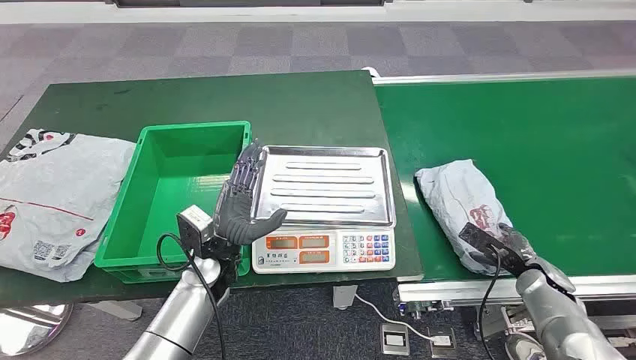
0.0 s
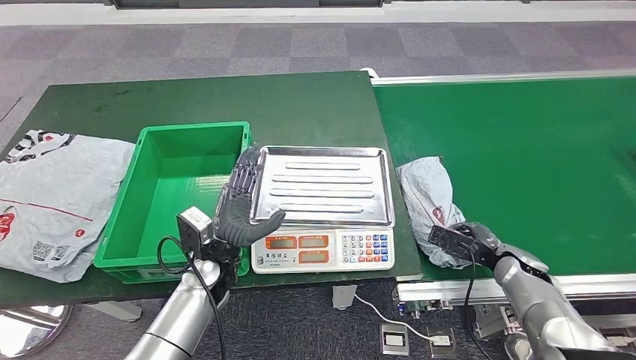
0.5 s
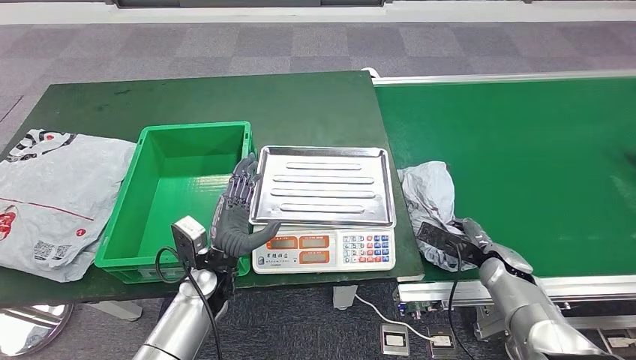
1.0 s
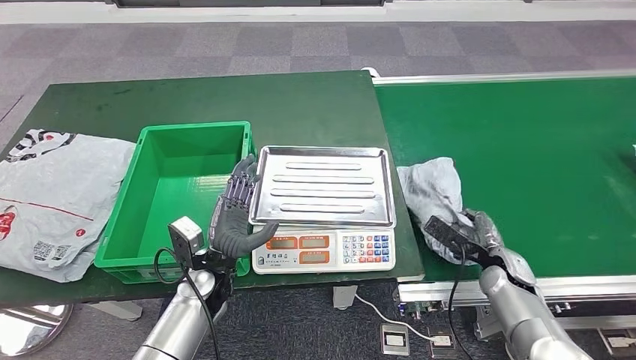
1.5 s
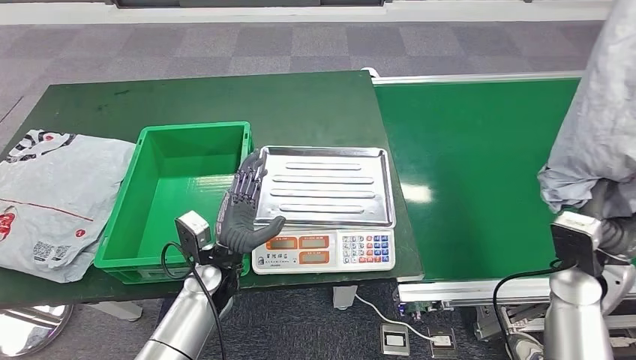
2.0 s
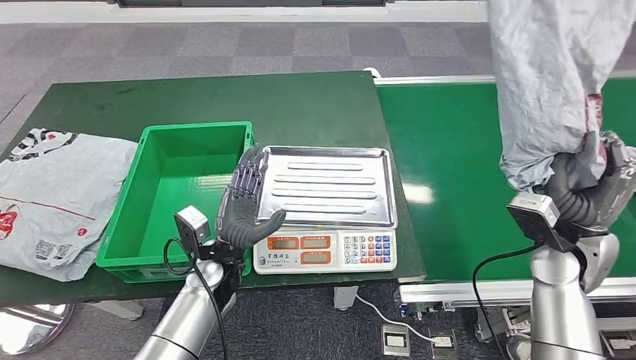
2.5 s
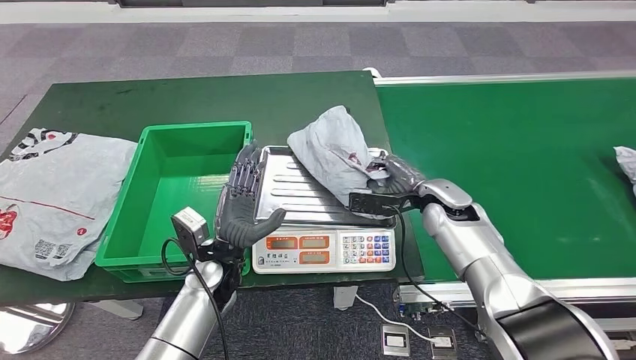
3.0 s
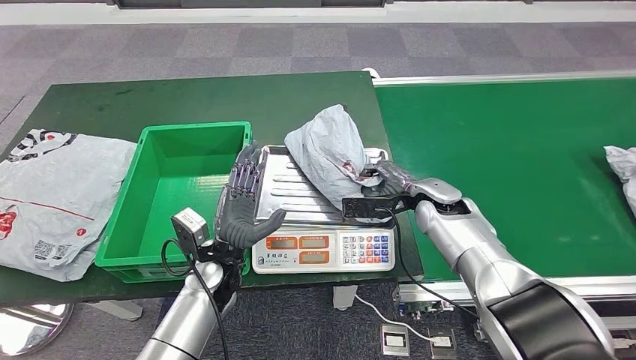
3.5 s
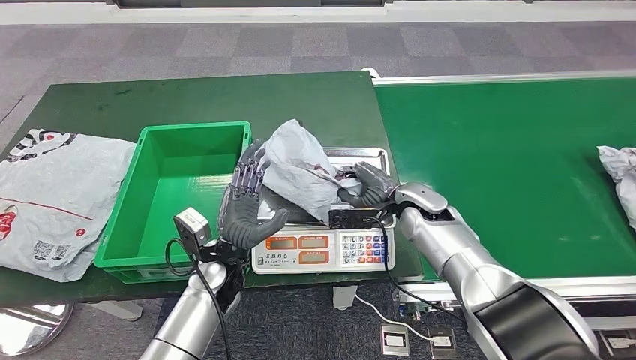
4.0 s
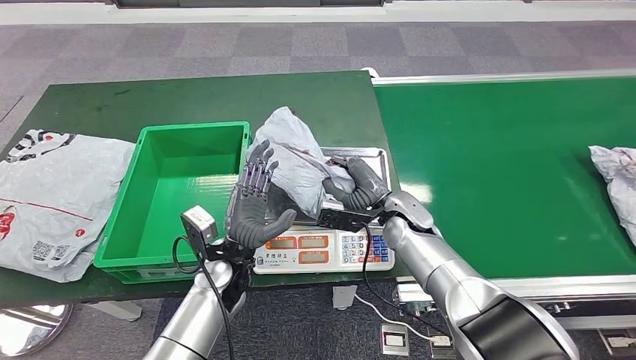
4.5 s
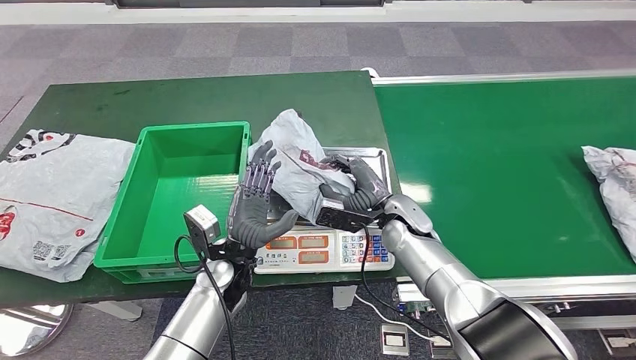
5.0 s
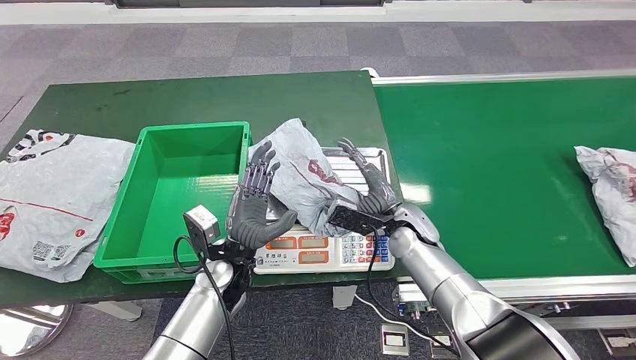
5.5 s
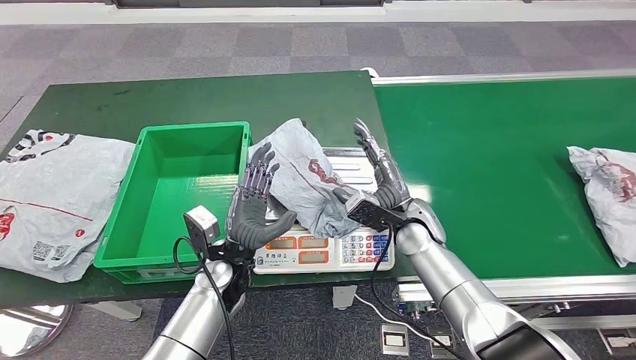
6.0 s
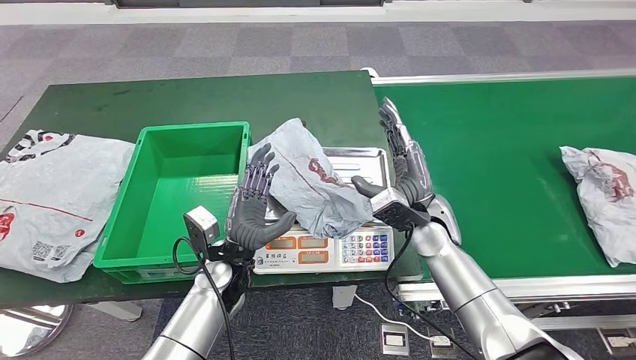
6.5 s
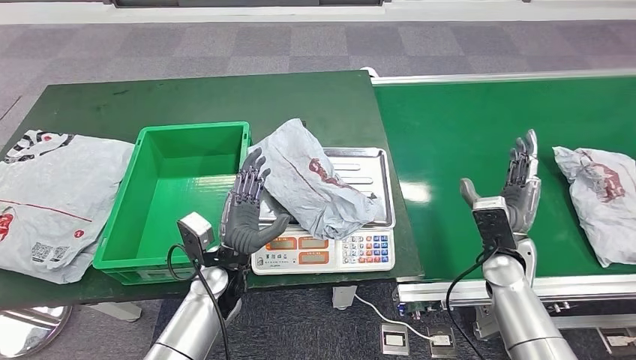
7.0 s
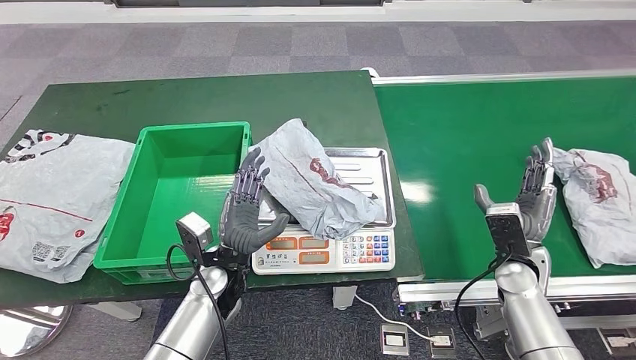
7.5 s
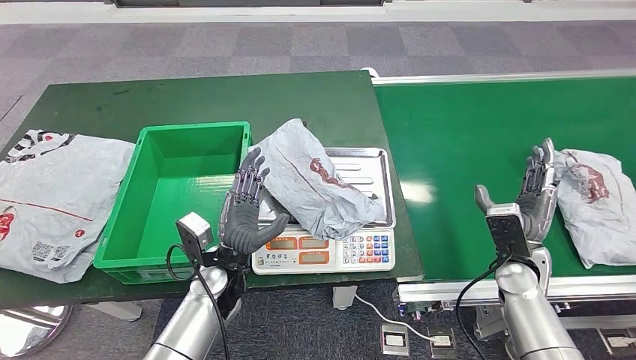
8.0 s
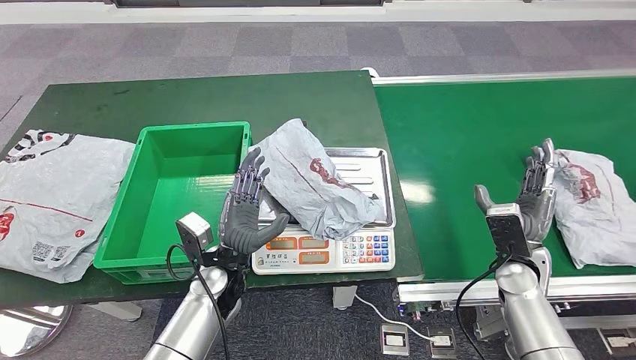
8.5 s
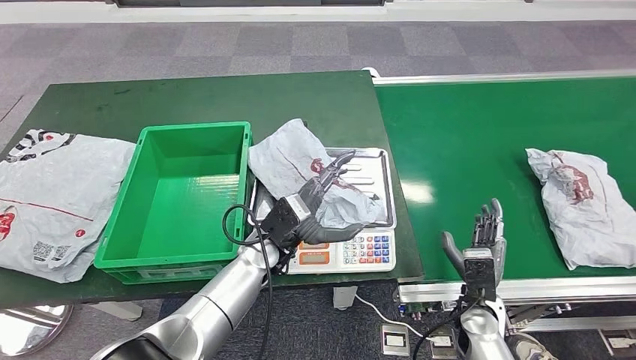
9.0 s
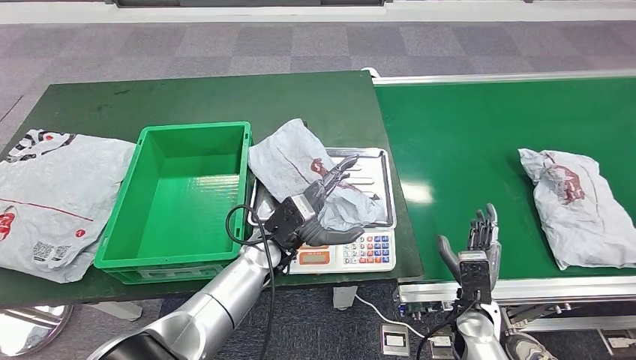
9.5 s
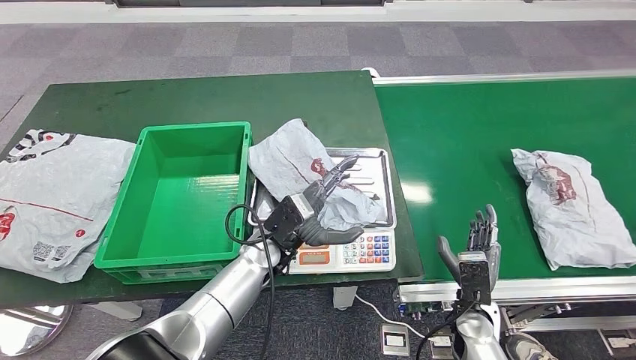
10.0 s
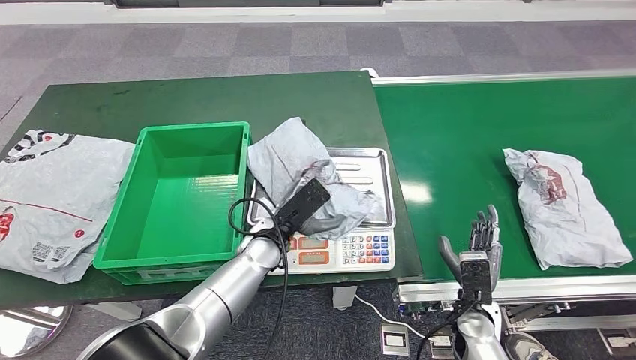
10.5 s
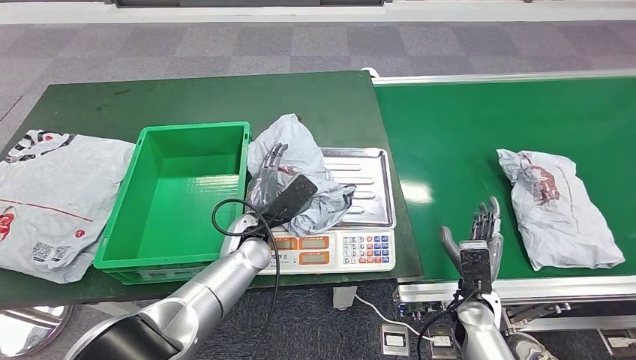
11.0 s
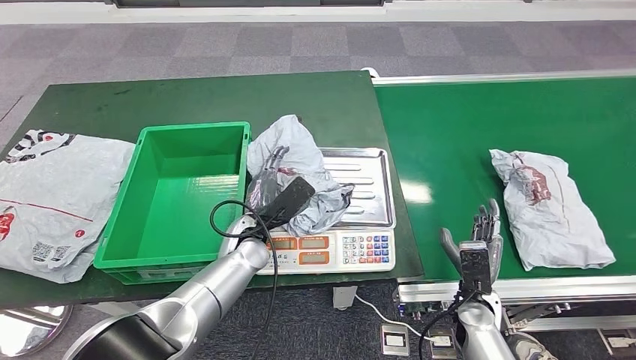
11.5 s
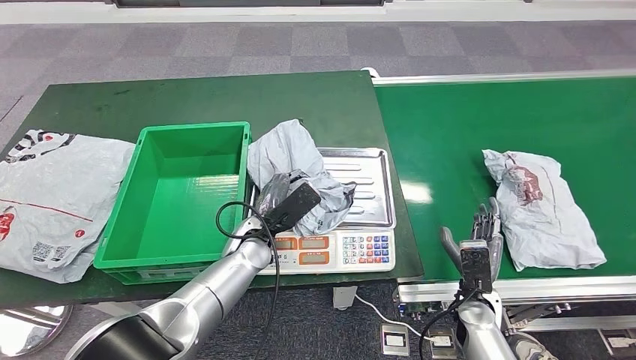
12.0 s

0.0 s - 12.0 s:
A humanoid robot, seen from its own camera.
Step, 0.0 s - 1.5 s: Take the parcel off the conveyor belt.
Step, 2.0 s - 5.0 s: Place the parcel onto the inbound machine.
6.0 s - 8.0 s: The right hand travels to the right and backward by roughly 20 cm.
8.0 s - 10.0 s: The right hand goes approximately 15 cm downward, to the left and backward, while the left hand moves to the right, roughly 5 cm.

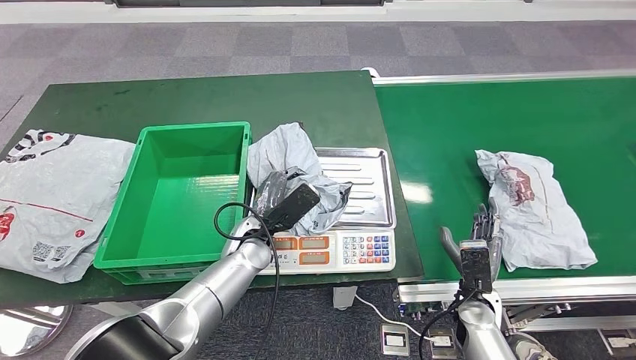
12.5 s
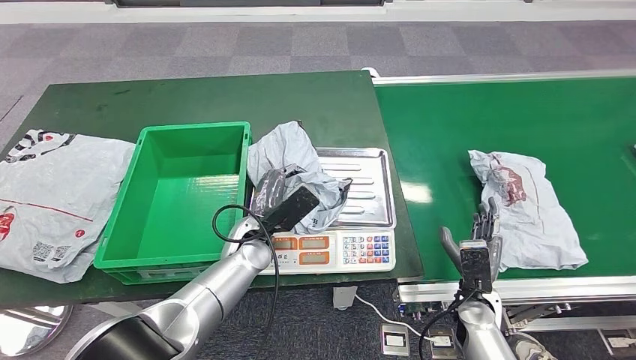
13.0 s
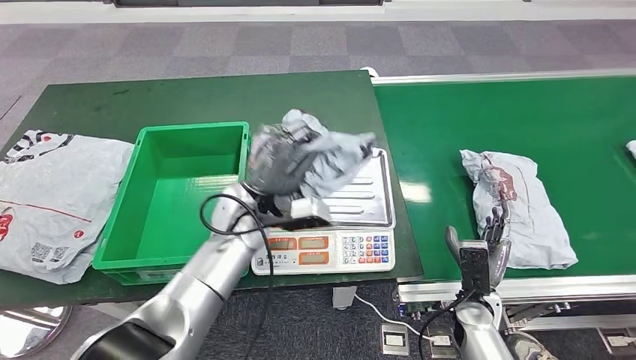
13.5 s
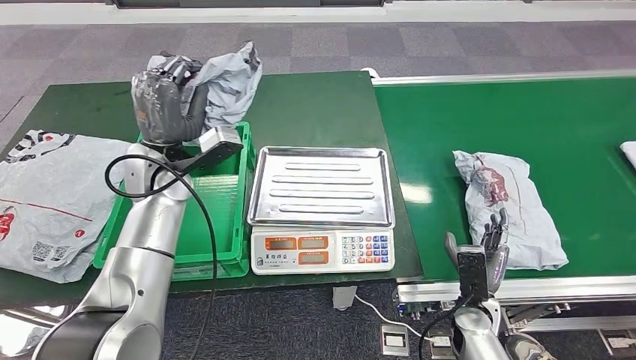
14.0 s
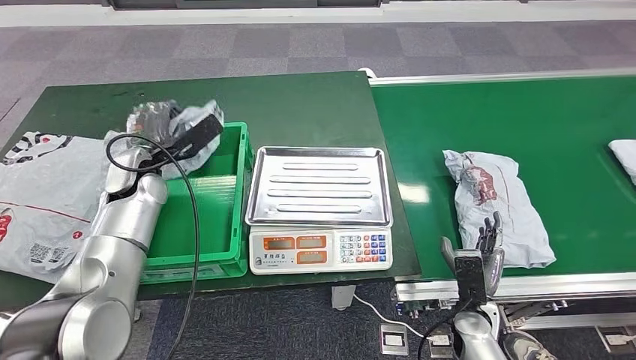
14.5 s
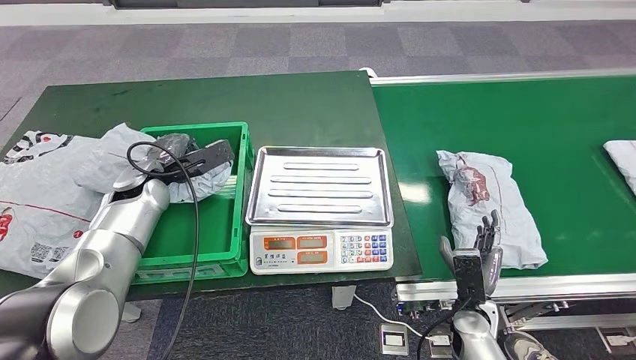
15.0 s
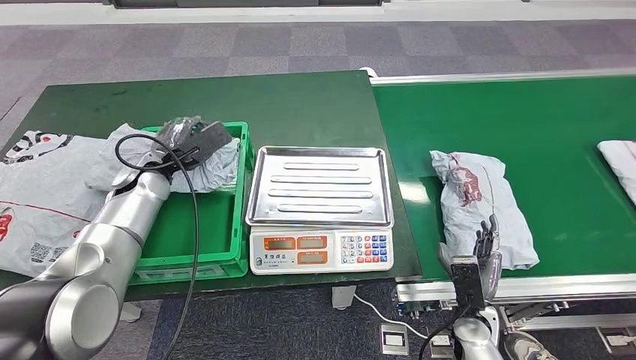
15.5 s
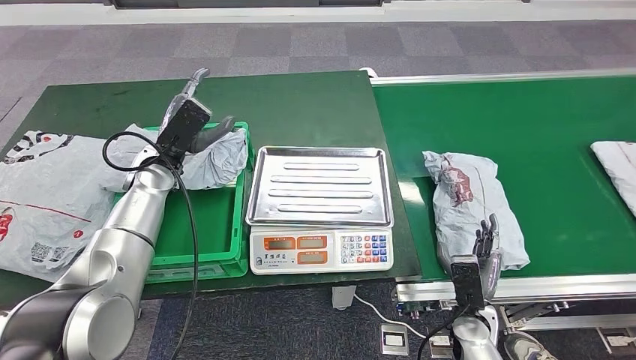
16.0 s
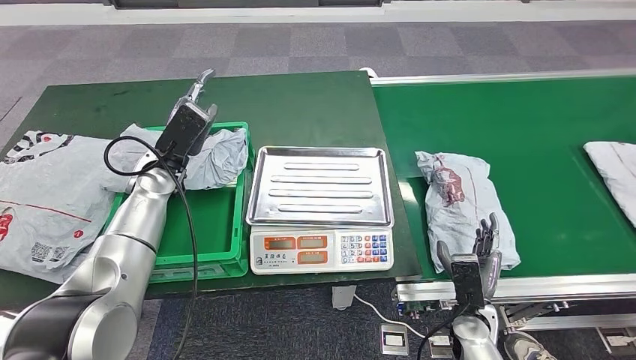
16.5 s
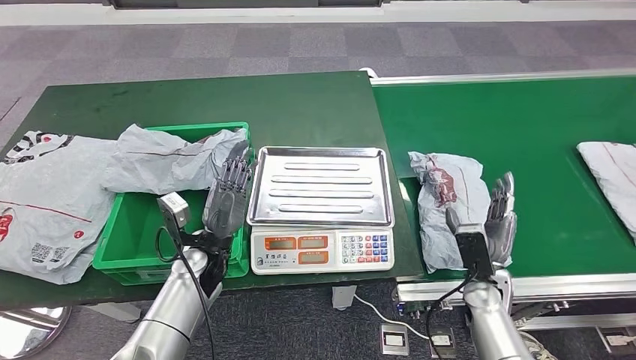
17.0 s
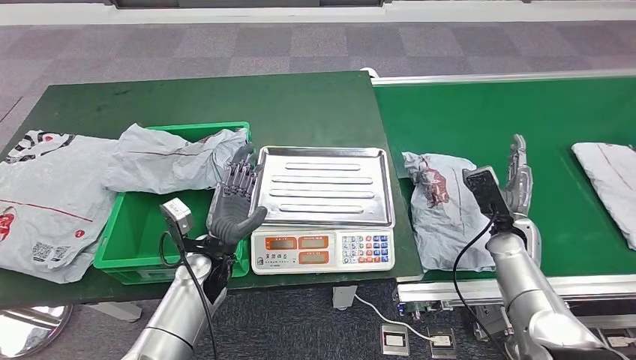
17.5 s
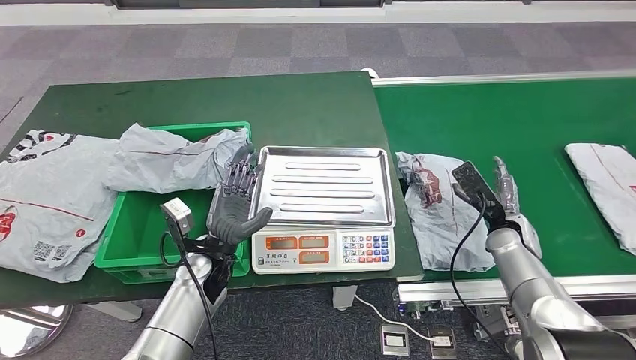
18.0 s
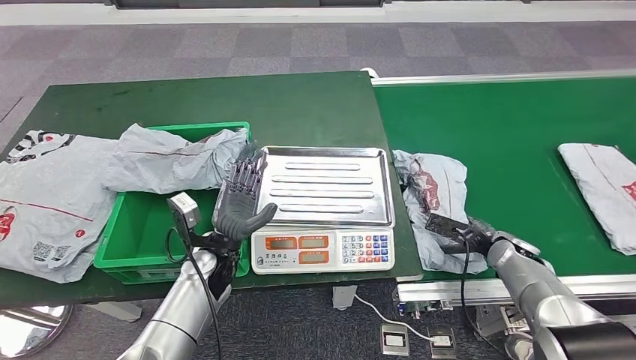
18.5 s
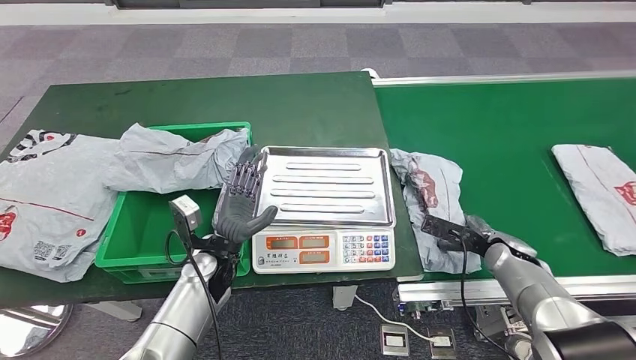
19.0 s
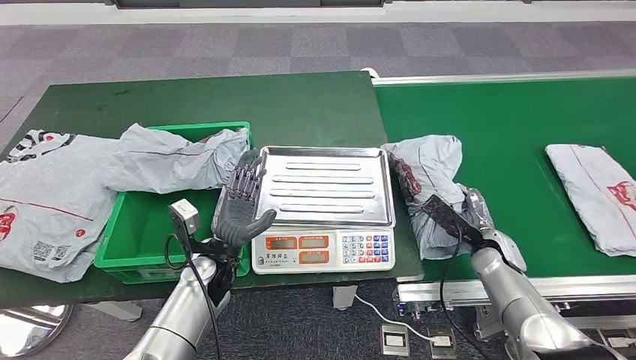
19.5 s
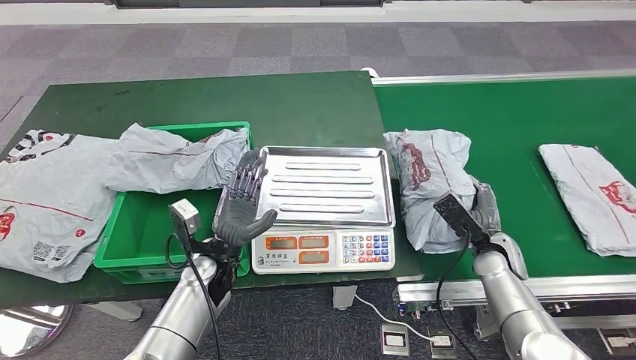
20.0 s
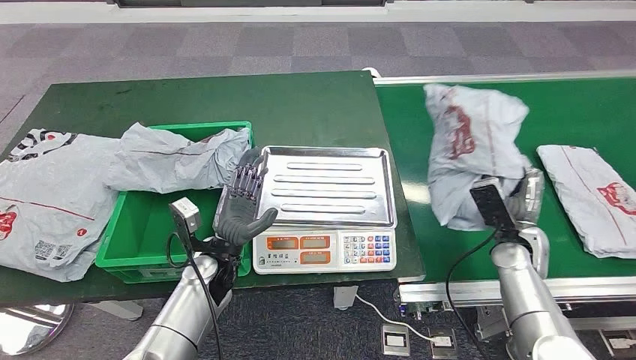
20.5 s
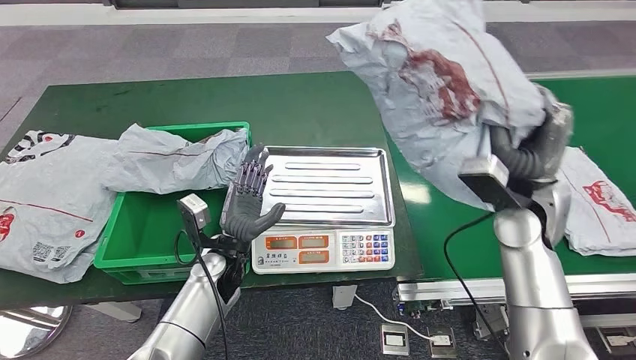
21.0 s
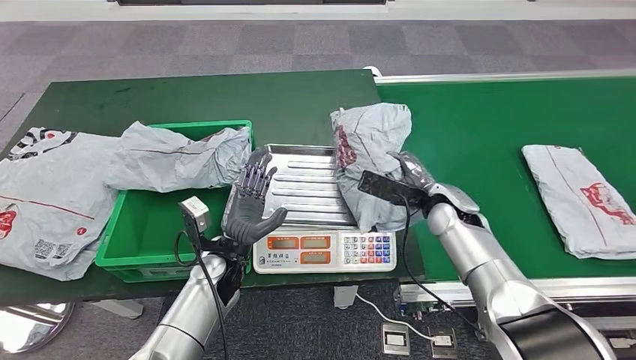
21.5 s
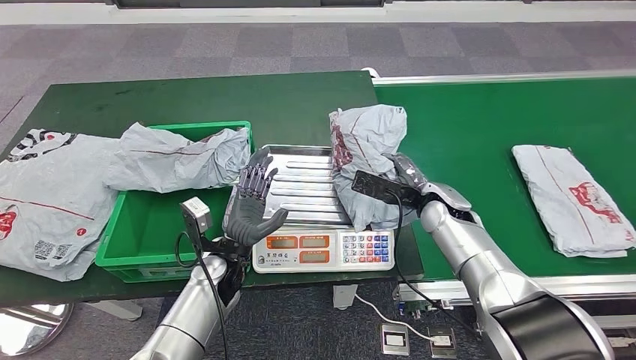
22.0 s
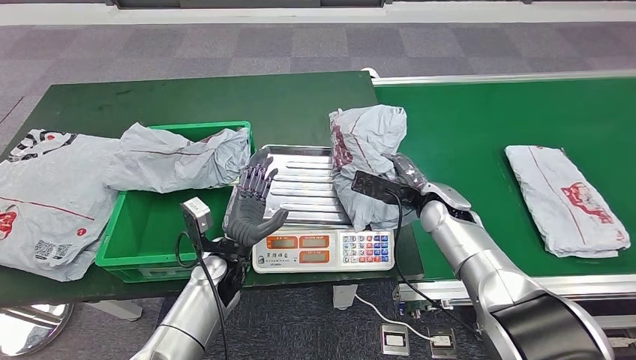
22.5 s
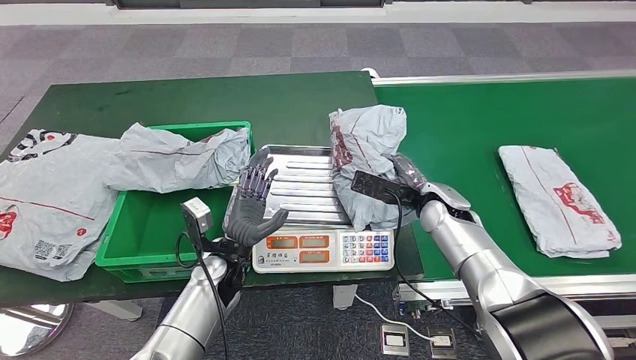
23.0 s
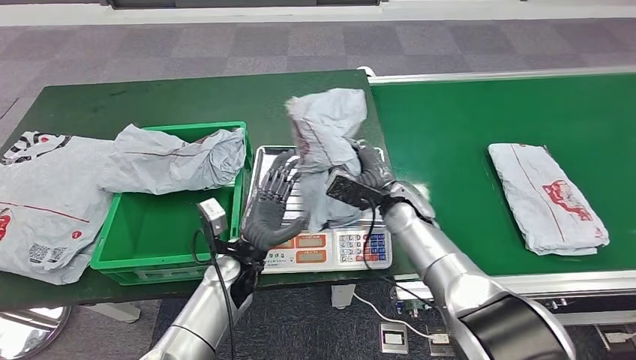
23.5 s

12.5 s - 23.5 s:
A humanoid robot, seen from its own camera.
Step, 12.5 s - 14.0 s: Pick up the parcel from the inbound machine.
Step, 14.5 s - 17.0 s: Put the parcel inside the courier box.
Step, 17.5 s - 20.0 s: Pick up the parcel from the conveyor belt.
